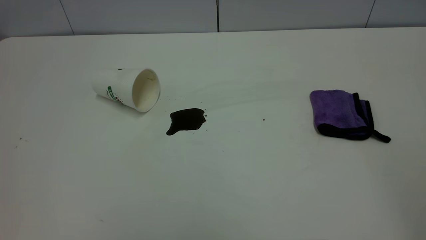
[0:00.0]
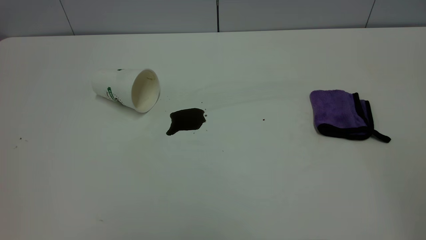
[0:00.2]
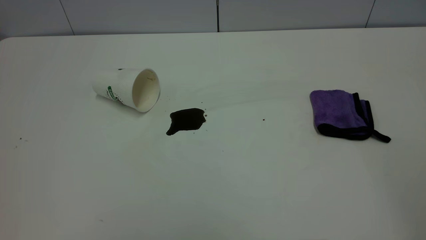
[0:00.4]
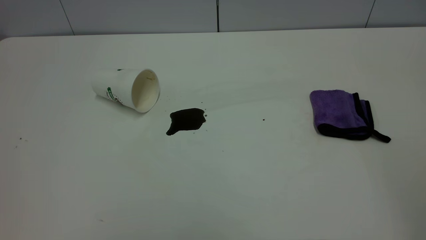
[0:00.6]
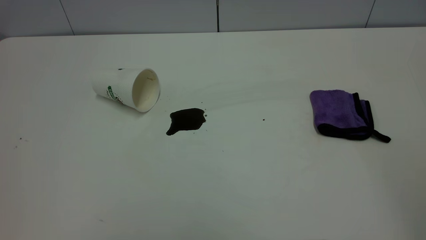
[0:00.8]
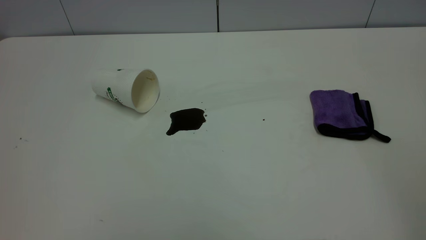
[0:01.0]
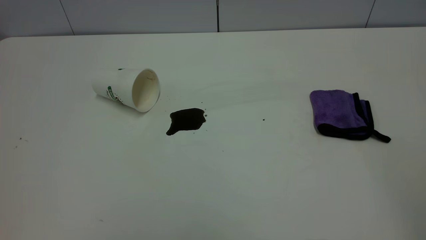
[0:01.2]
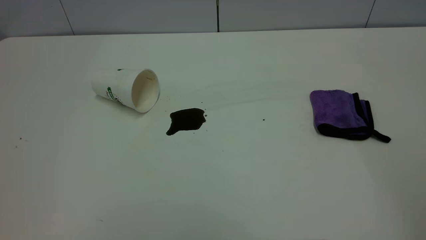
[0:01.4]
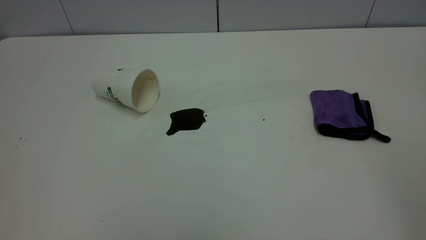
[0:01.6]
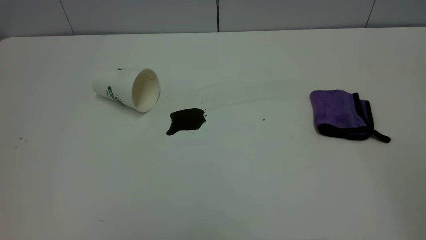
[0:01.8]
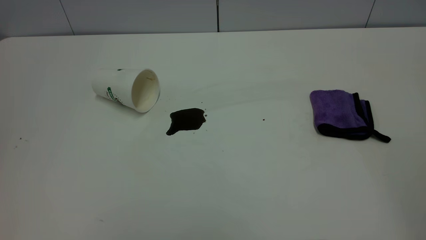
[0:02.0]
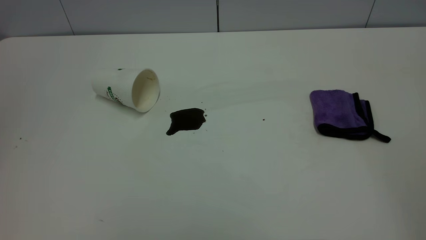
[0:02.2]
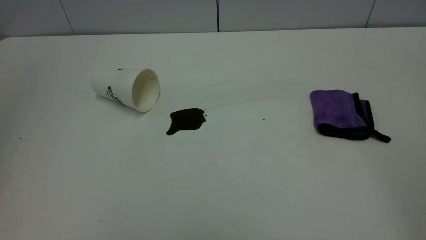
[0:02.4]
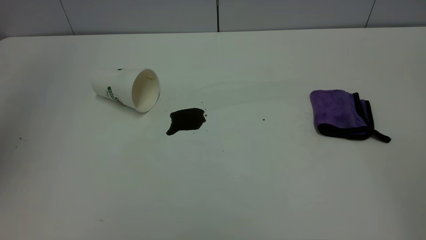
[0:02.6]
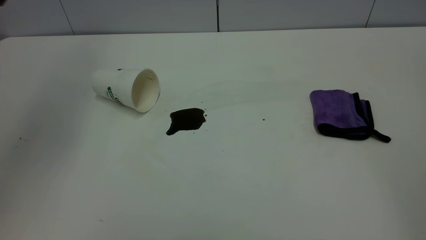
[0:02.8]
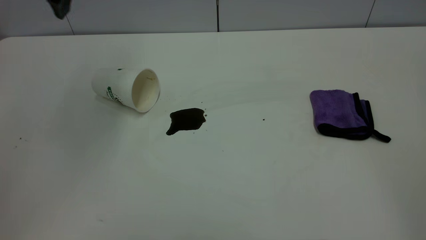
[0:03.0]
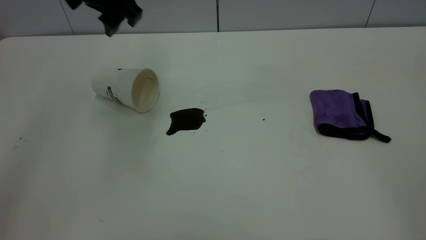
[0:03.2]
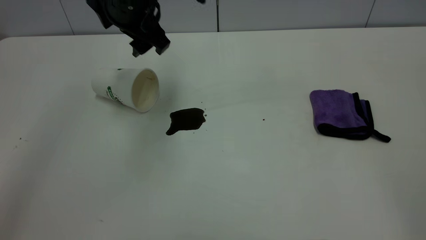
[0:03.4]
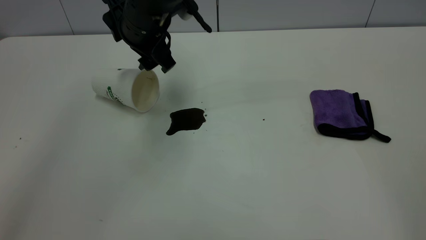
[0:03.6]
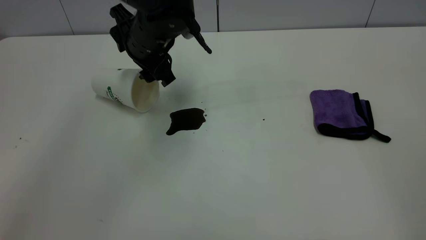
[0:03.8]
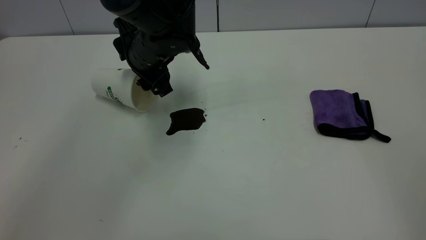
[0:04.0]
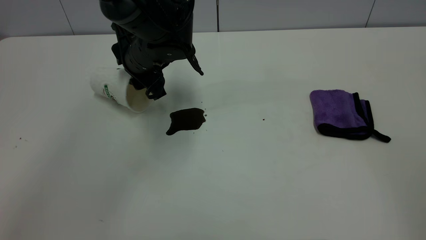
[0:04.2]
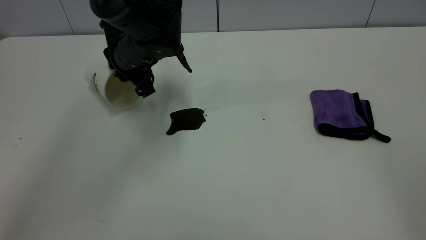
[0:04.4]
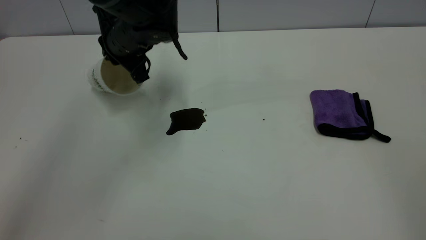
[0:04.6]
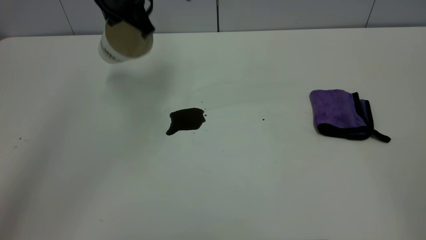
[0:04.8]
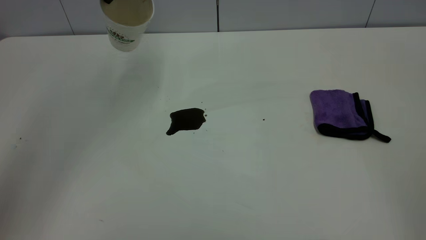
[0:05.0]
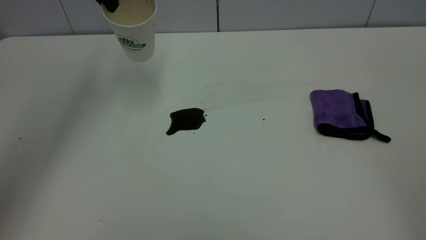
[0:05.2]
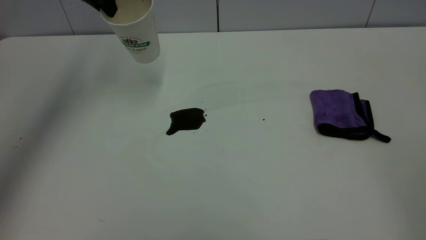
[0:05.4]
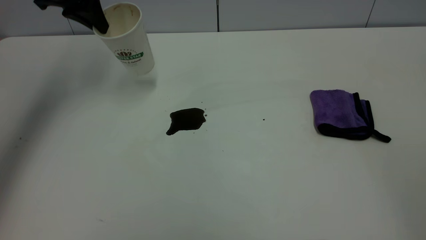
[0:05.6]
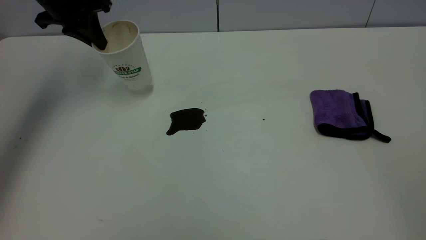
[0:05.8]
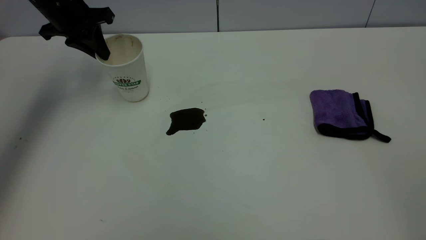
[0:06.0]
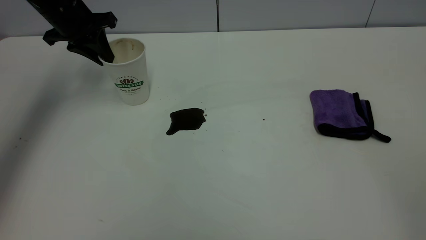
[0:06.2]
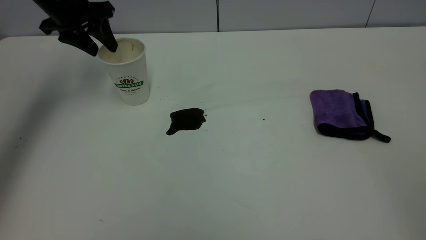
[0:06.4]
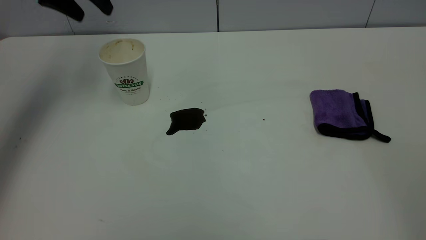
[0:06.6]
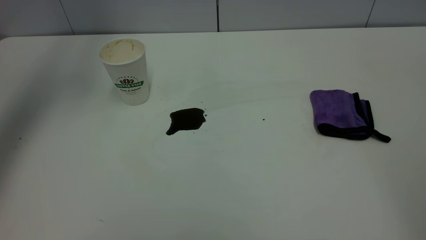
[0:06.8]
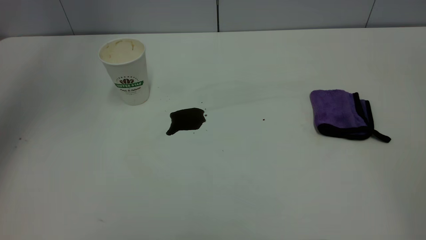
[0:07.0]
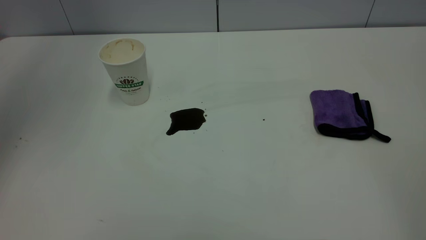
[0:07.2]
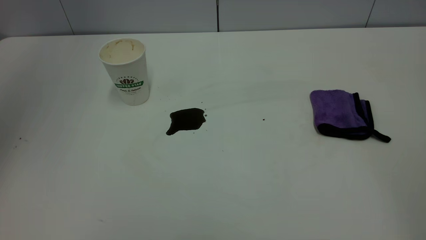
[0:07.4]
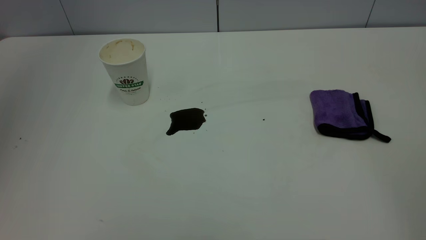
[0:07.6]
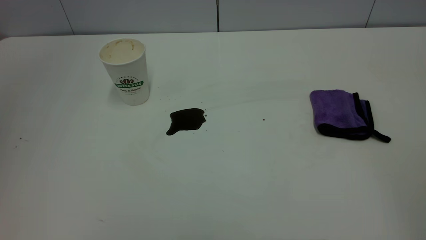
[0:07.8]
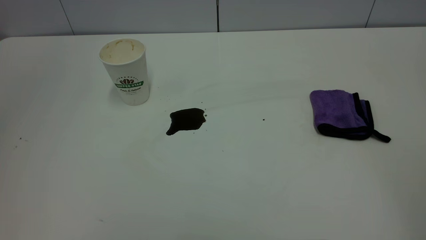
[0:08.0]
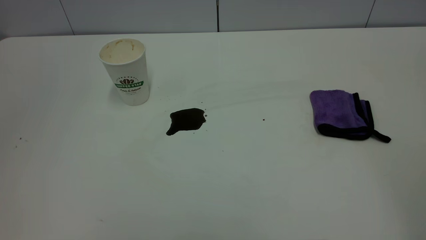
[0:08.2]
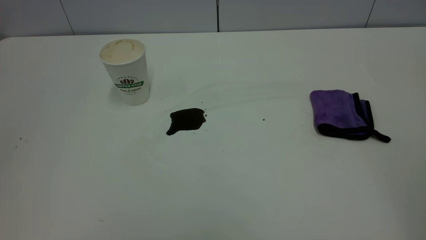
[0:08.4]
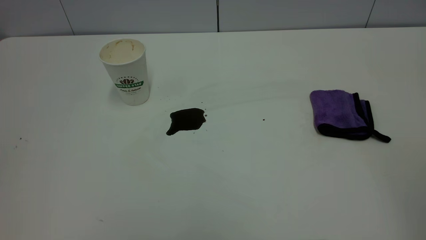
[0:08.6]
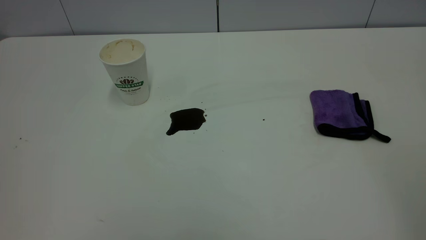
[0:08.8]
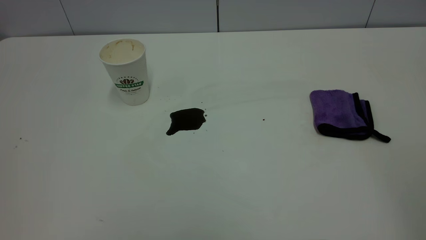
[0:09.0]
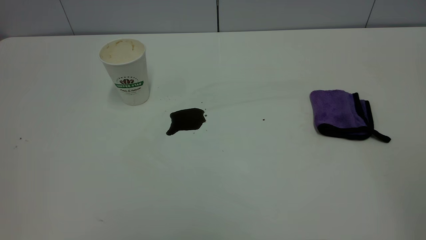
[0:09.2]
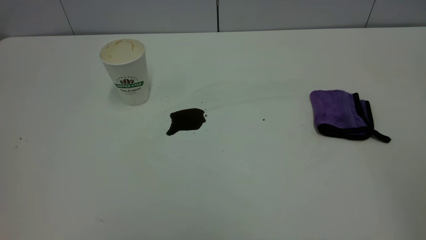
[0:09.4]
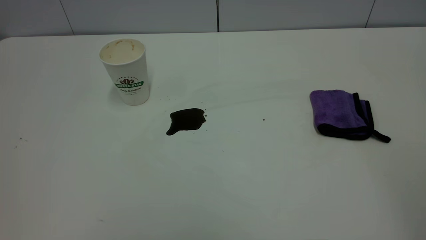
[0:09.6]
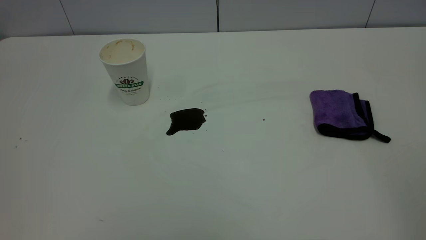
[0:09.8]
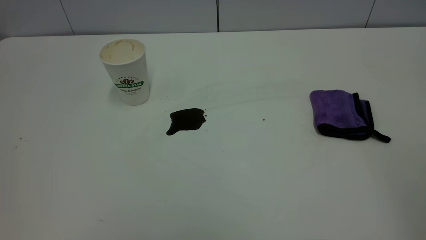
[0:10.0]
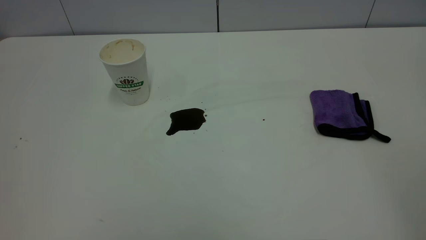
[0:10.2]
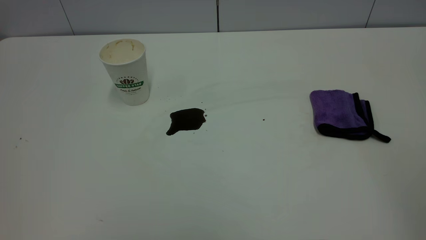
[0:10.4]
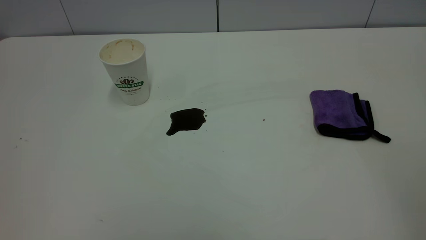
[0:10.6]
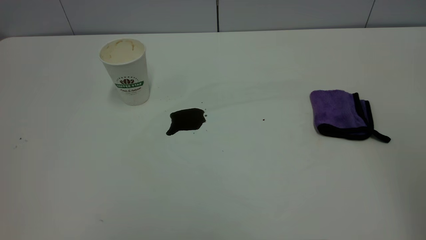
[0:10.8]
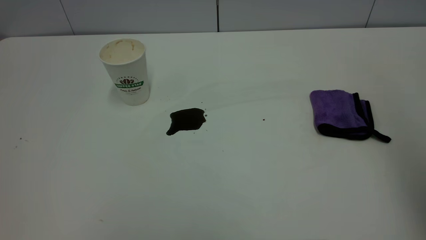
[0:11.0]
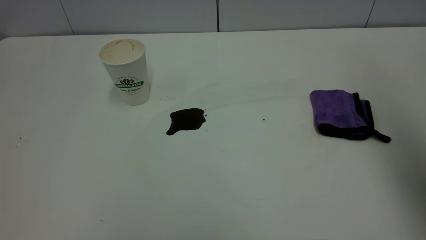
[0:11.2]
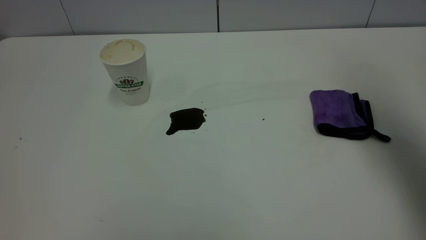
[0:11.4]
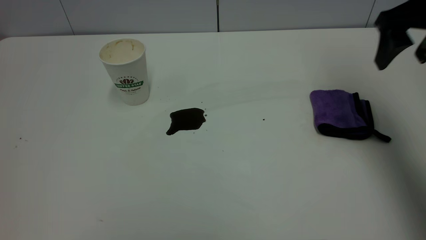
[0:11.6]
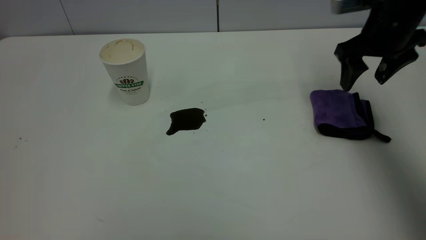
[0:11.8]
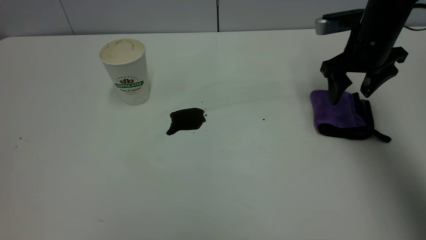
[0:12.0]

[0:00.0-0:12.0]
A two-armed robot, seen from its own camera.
Task of the whole recording: the left gripper pick up the fallen cup and place it upright, the right gripper grasp the purple rag and wipe the coffee stain on the table, the right gripper put the purple rag back in its original position.
Step, 0:00.0 to 0:06.4: Stand the paper cup upright.
0:00.0 to 0:01.6: The two grippers keep their place.
0:01.6 to 0:03.0: The left gripper moves forward, approximately 35 cm, and opens.
0:03.0 to 0:04.4: The left gripper is displaced downward by about 20 cm, and closes.
0:04.4 to 0:06.0: The left gripper heads to the left, upward and forward, covering some 15 cm.
0:06.0 to 0:07.6: The left gripper shifts approximately 40 cm upward and backward, and opens, then closes again.
0:09.0 to 0:10.4: Both grippers stay about where they are.
0:10.4 to 0:12.0: The right gripper goes some 50 cm forward and downward.

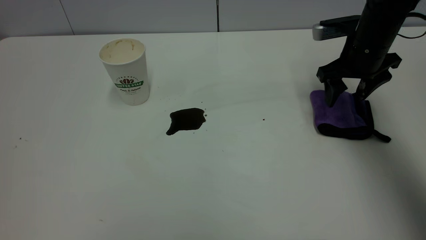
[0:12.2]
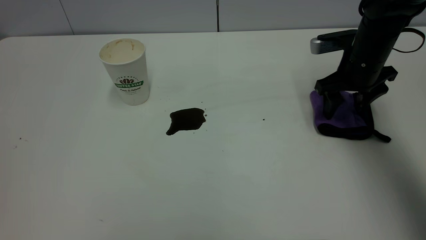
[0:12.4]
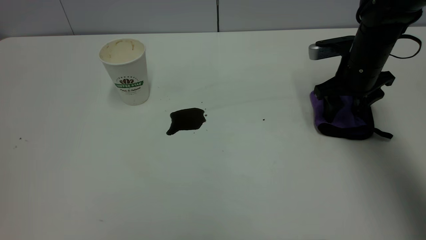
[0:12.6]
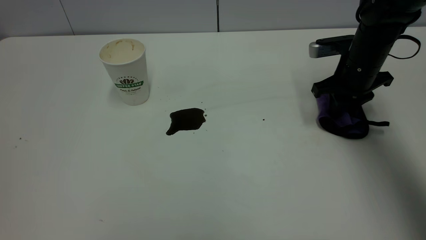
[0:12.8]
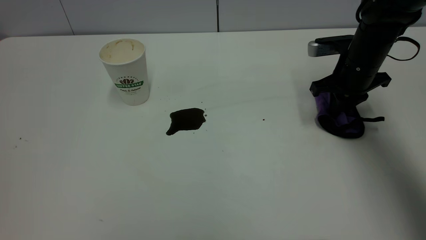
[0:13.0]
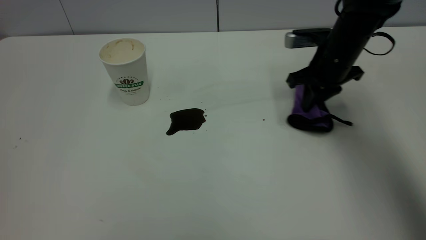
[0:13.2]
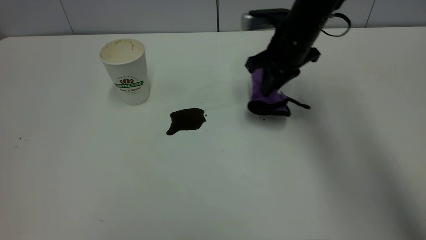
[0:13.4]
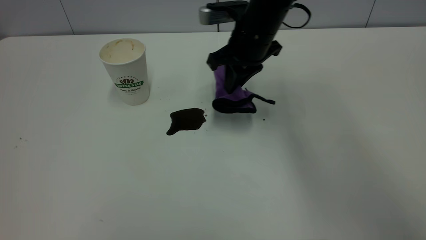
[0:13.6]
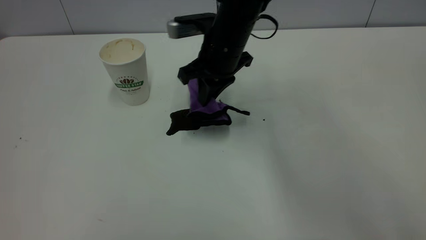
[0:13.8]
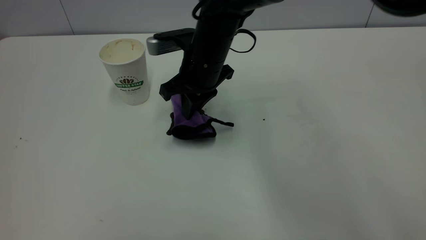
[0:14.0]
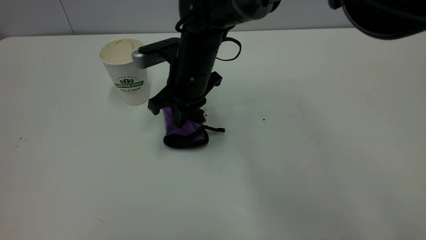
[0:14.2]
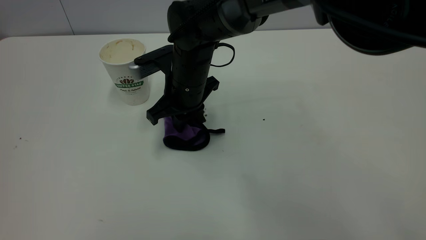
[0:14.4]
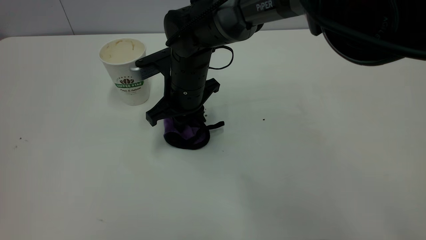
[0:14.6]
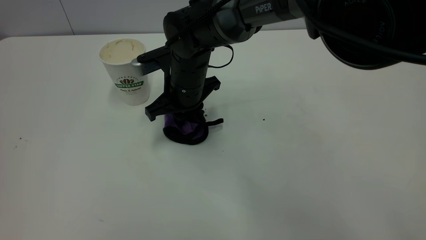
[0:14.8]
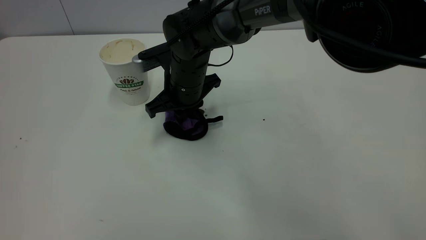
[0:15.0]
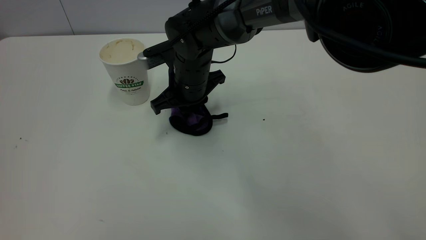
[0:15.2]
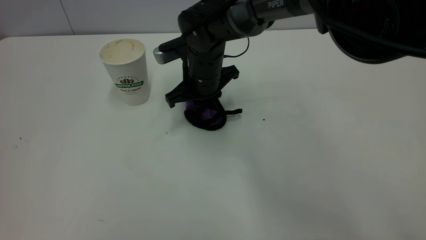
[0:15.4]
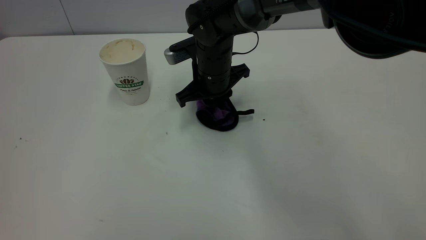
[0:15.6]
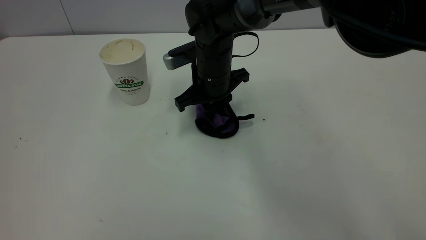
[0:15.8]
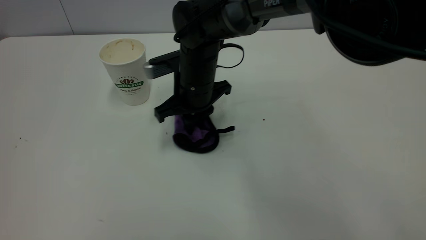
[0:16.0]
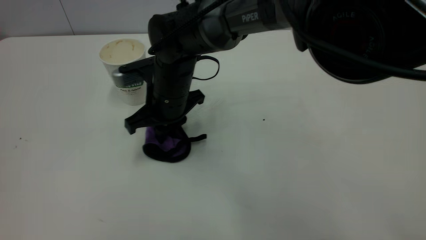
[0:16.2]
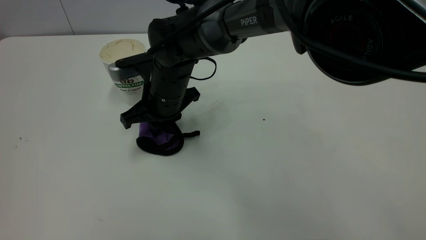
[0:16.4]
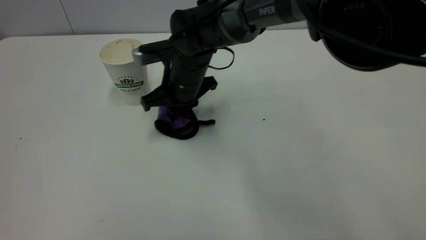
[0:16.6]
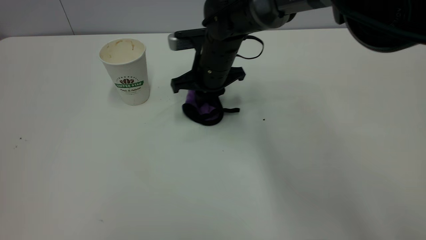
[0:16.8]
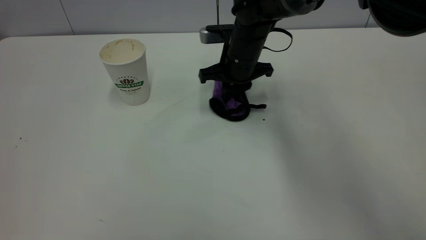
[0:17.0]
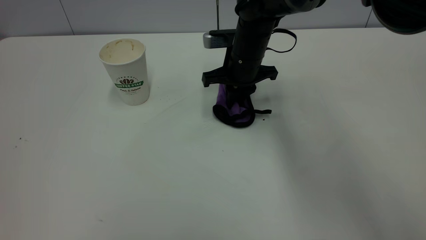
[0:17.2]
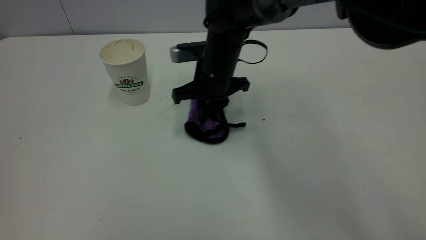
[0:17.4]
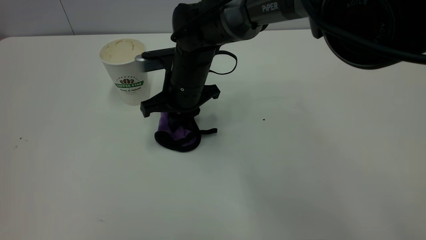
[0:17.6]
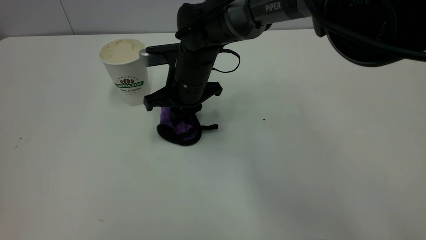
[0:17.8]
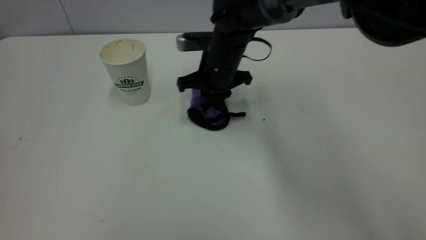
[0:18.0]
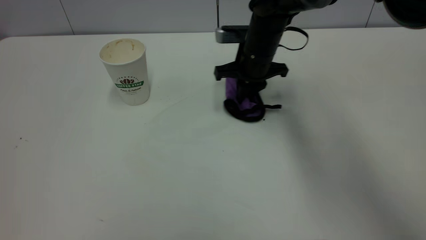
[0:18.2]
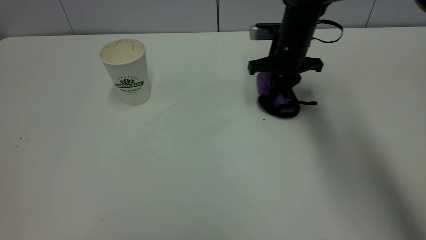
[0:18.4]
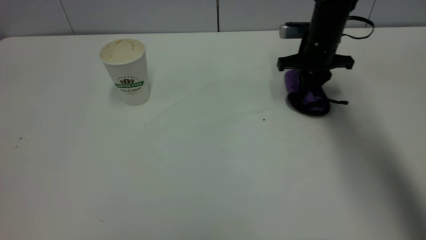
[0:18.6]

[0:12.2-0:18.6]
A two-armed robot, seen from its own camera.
Task of the whole recording: the left gripper pick up the fallen cup and place it upright, the right gripper grasp the purple rag and wipe the coffee stain on the table, the right gripper put the purple rag back in its original position.
0:12.2 to 0:13.8: The right gripper goes roughly 25 cm to the left, and closes.
0:13.8 to 0:15.4: The right gripper changes place by about 5 cm.
0:15.4 to 0:17.0: The right gripper travels to the right by some 5 cm.
0:17.0 to 0:18.6: The right gripper moves to the right, some 15 cm.
